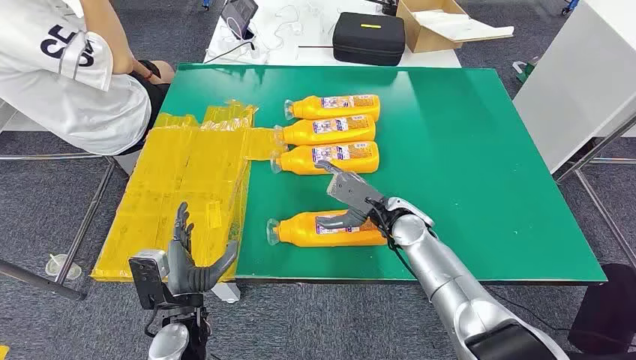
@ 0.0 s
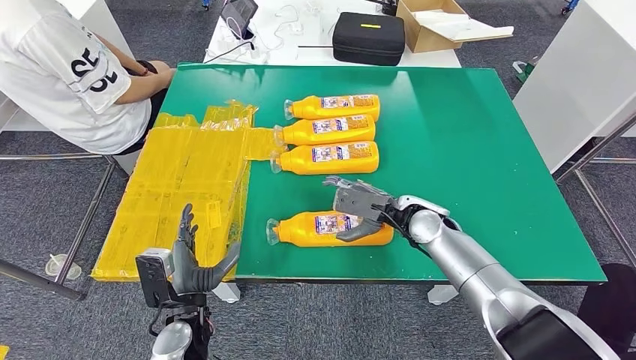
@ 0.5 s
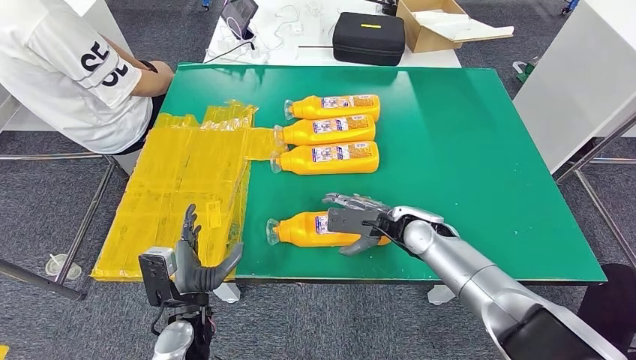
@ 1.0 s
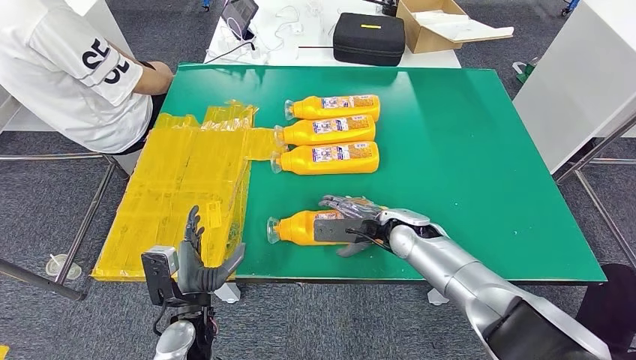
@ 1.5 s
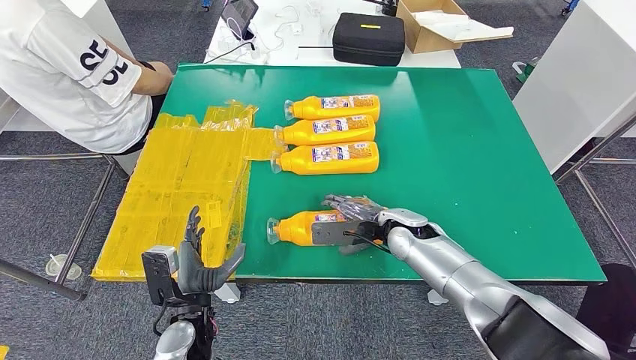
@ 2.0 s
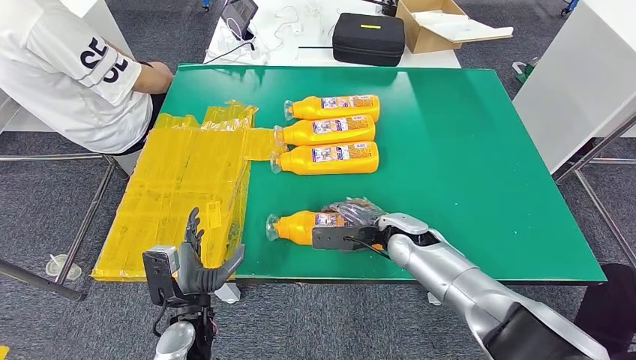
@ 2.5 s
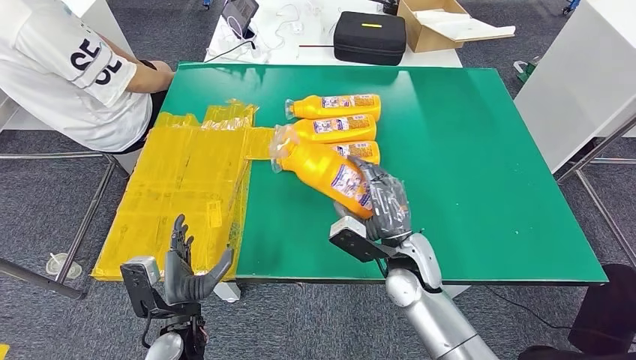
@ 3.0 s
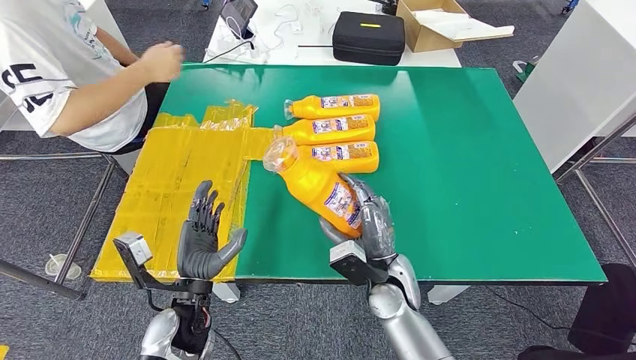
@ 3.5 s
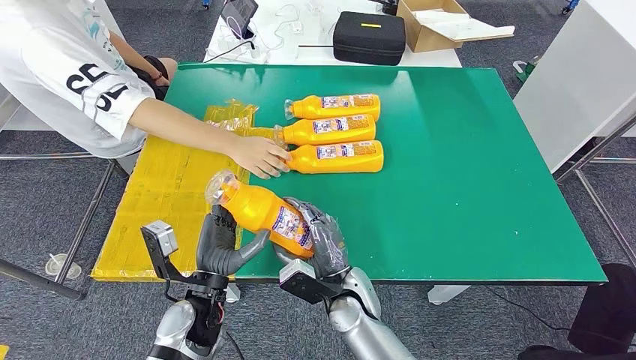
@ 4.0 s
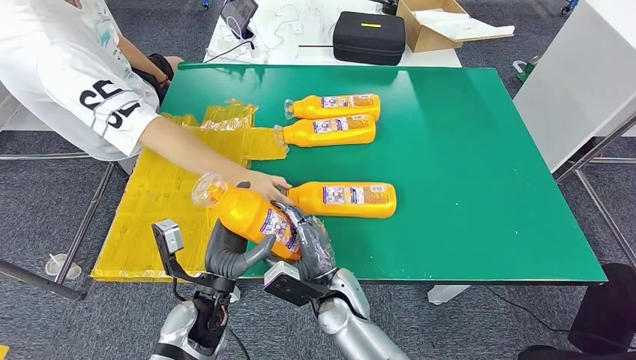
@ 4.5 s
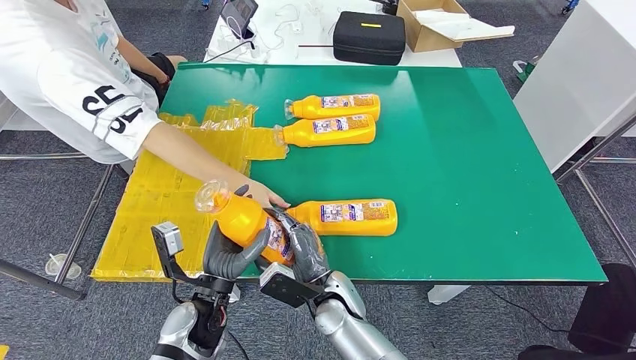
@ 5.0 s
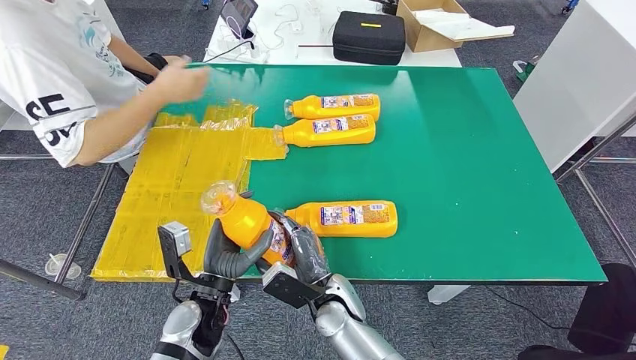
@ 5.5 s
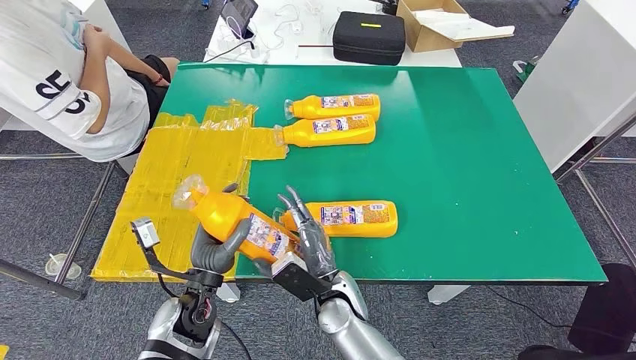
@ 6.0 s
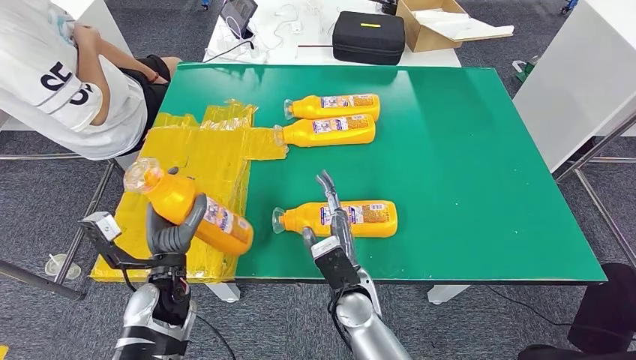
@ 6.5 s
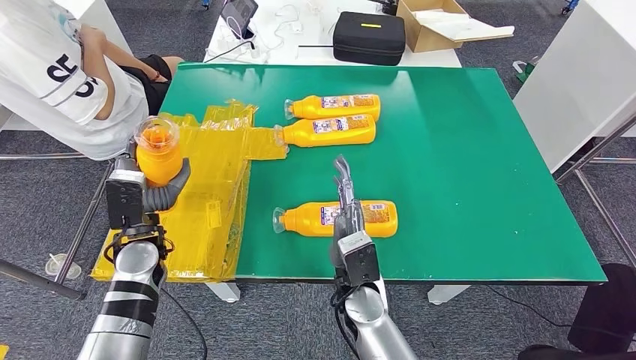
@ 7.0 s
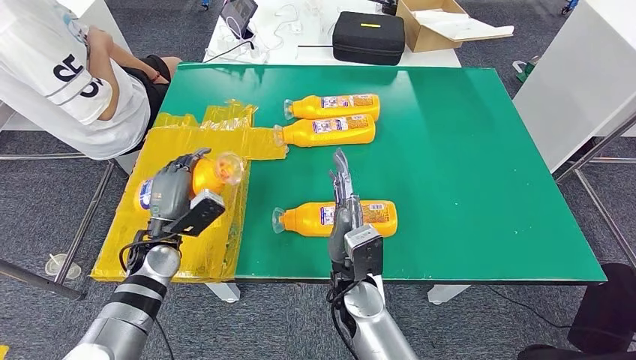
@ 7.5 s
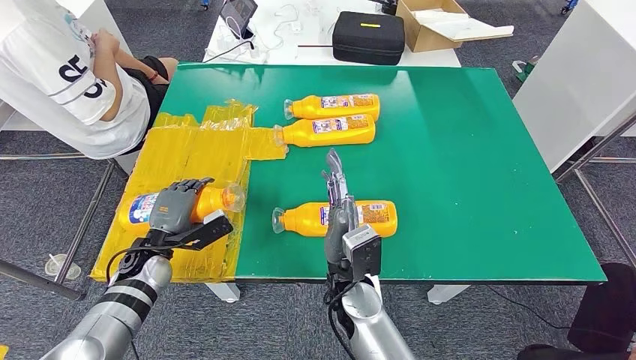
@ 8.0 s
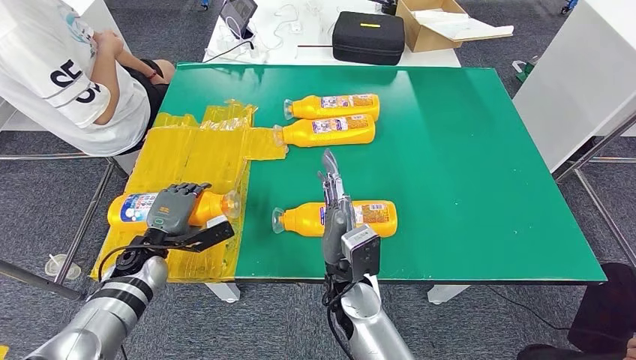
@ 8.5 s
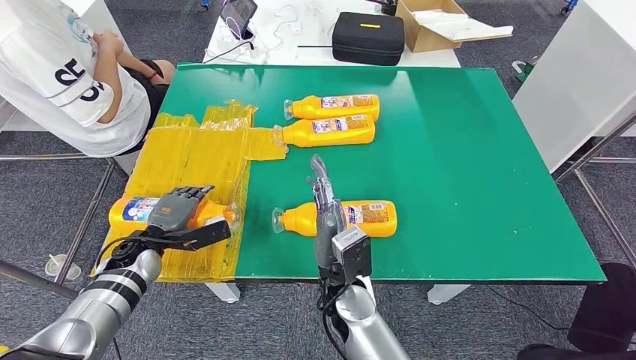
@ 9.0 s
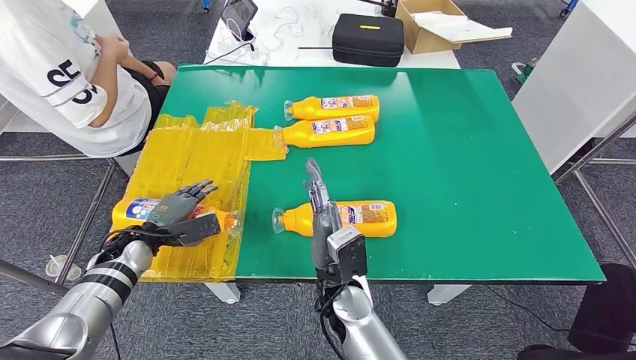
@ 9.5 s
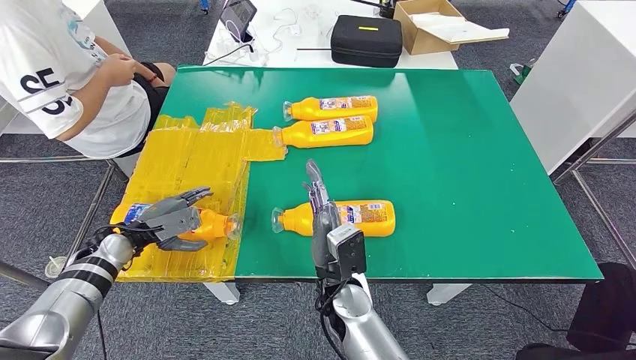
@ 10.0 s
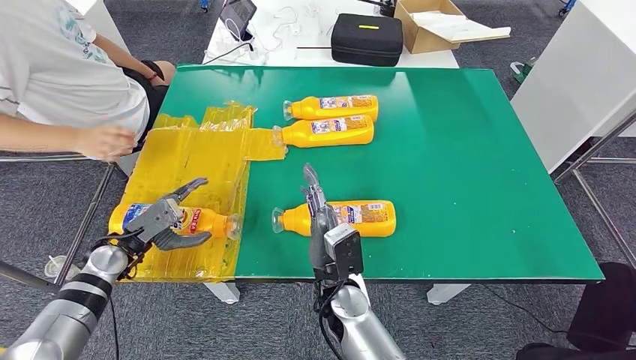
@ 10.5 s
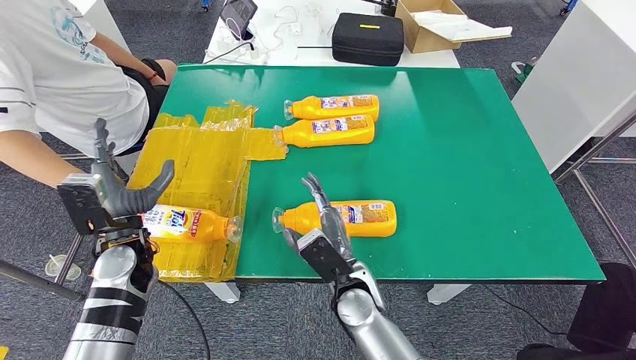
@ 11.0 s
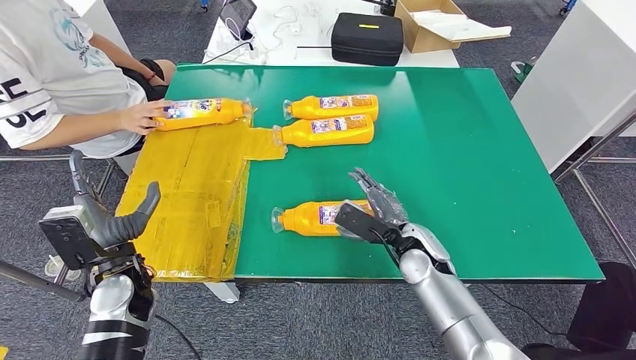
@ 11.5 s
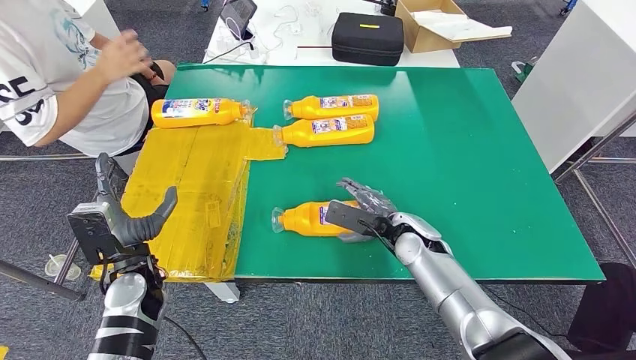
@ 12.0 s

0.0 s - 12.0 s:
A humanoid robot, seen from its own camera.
Step, 0.0 s - 5.0 s: Take the fast-moving consumer goods bottle from the table.
Step, 5.5 s - 11.5 s: Flip the fast-moving consumer goods bottle to the front side.
4.0 s - 6.0 s: The hands make only small movements.
6.0 s - 8.0 s: The right hand shifts some 5 cm upward. Meanwhile the left hand goes some 15 cm to the left and forward.

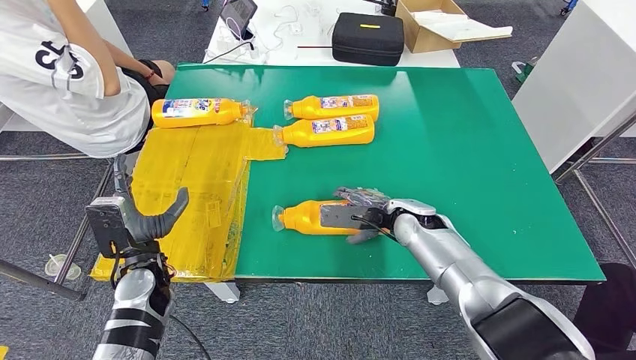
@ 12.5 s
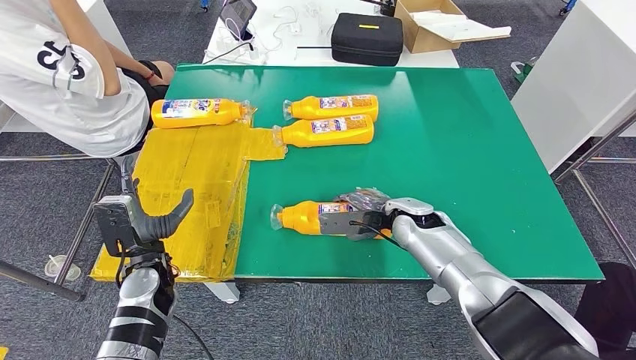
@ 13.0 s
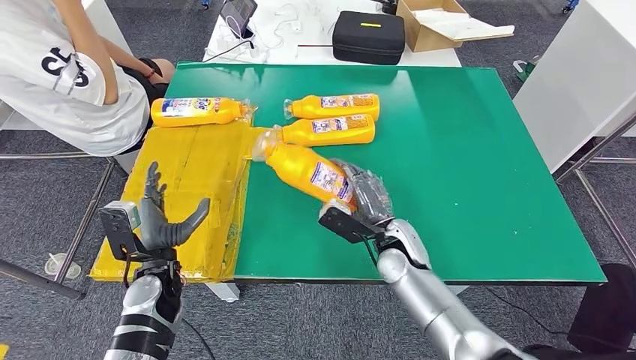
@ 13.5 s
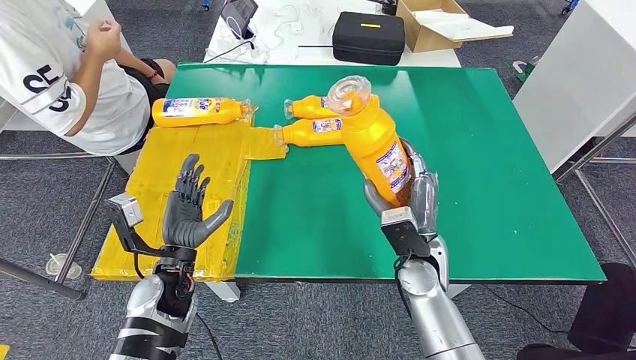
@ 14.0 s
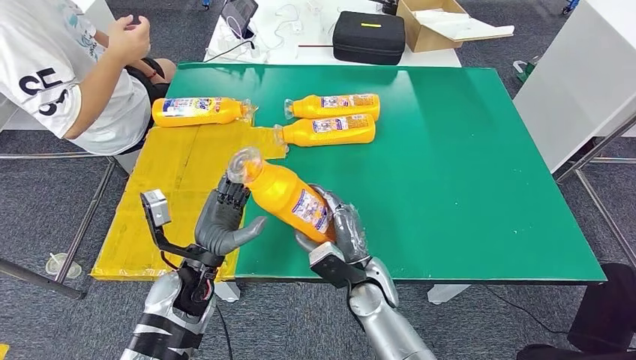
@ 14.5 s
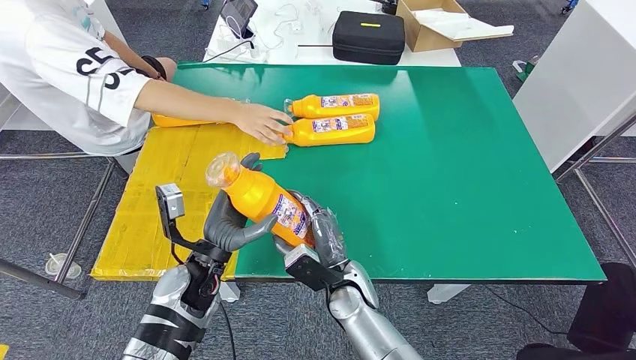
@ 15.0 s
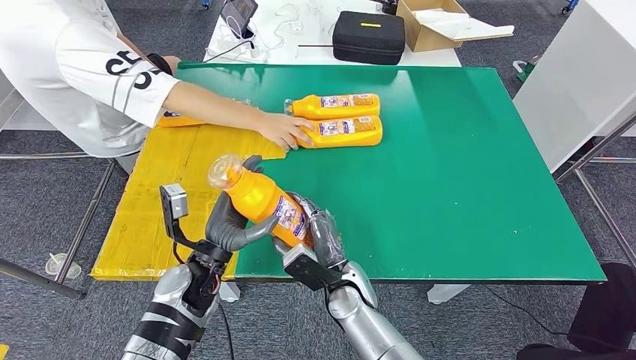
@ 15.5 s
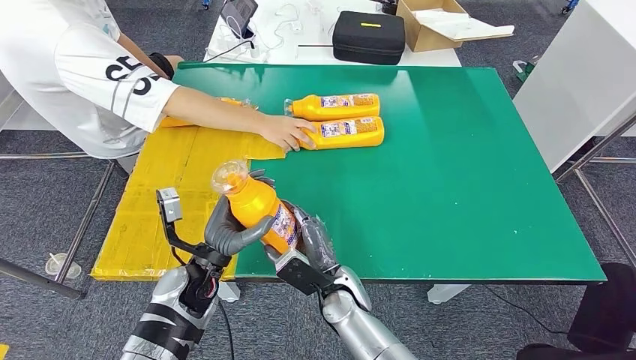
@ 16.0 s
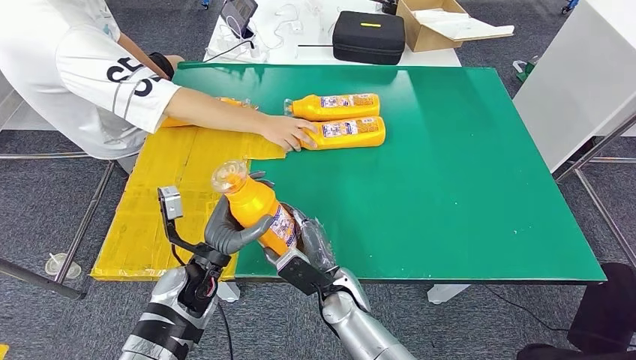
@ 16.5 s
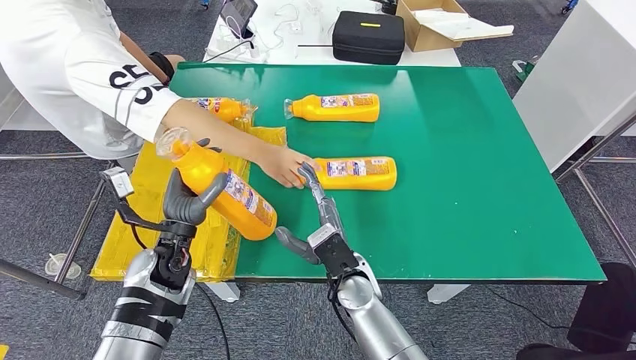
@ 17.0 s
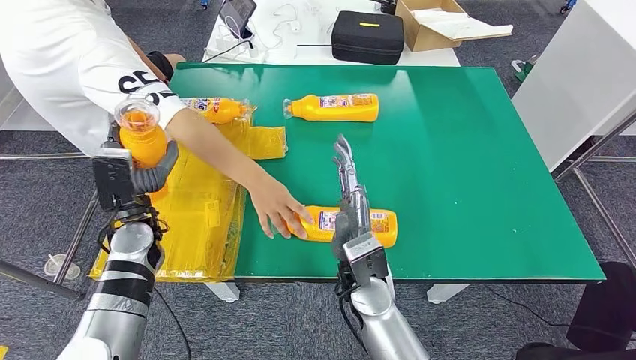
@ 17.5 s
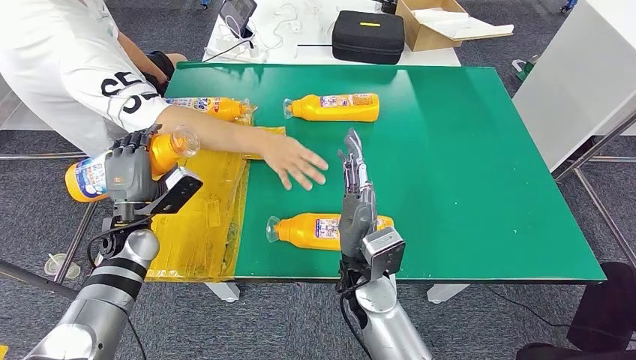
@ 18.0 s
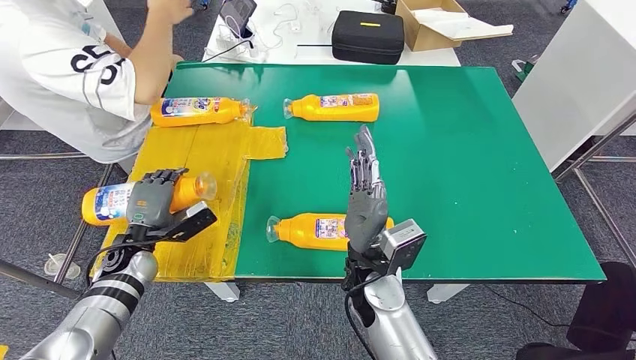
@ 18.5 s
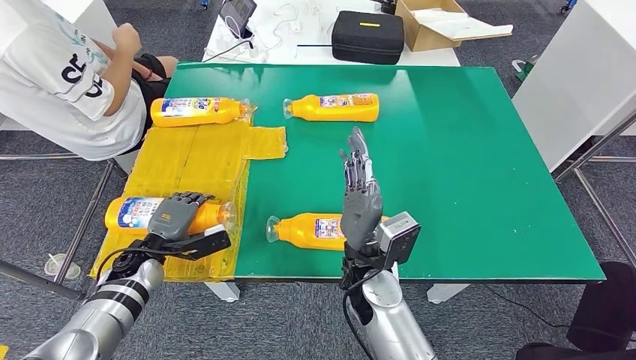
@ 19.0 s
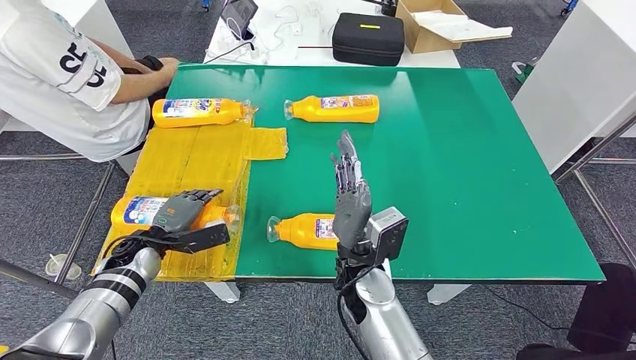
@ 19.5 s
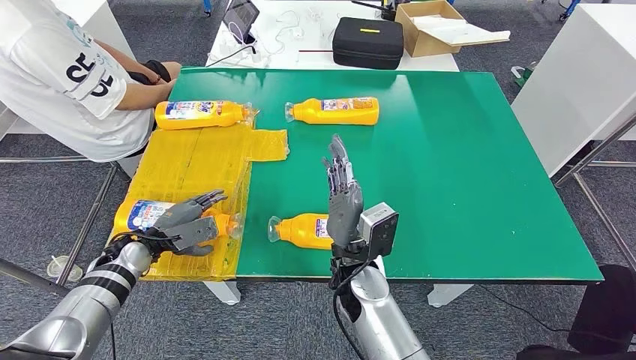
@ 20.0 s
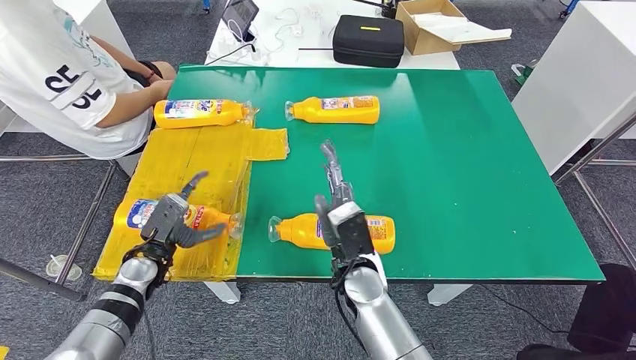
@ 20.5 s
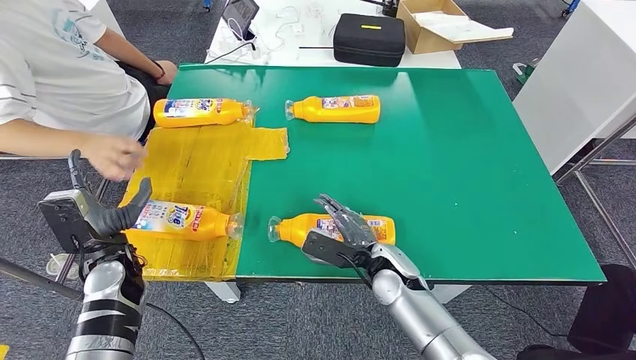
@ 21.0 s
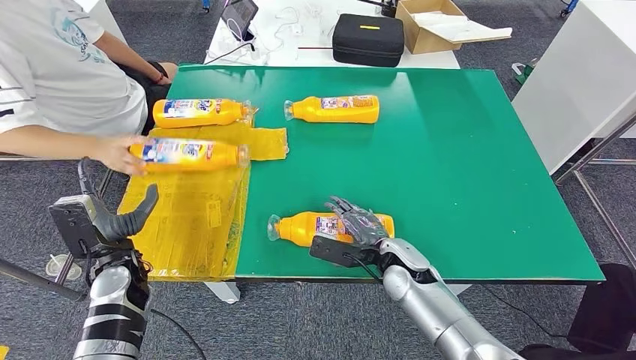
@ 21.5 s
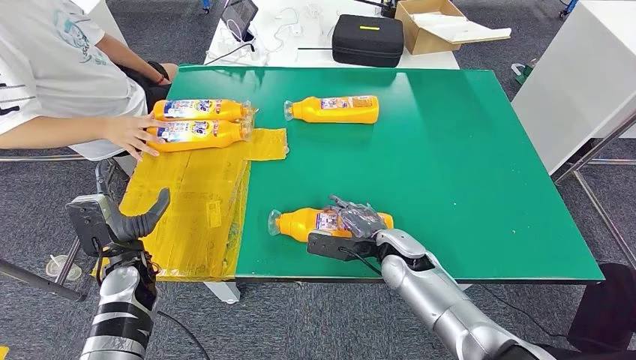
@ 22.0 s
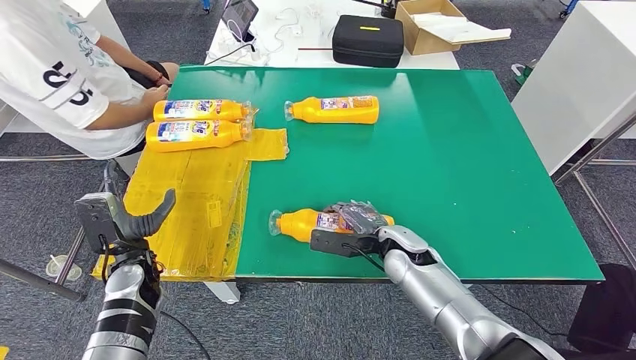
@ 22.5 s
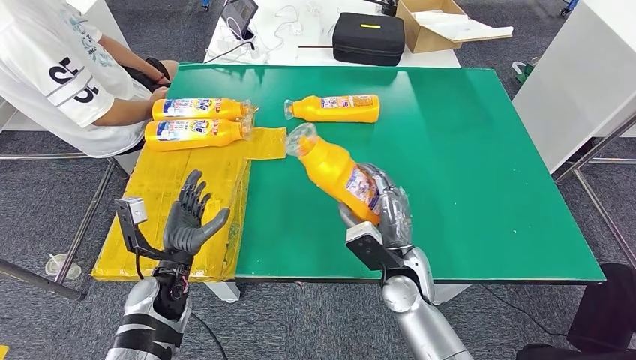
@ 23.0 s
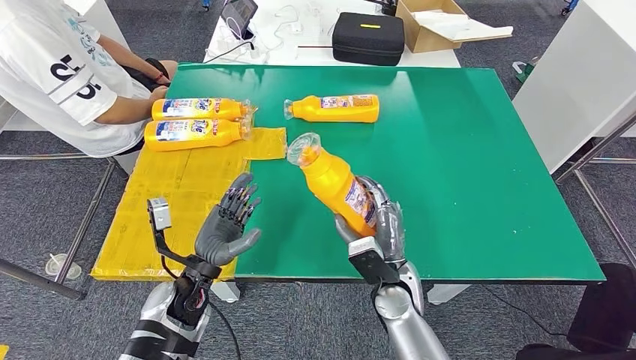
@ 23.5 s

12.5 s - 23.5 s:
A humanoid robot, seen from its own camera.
Step, 12.5 s - 15.0 s: Pick up the fast-moving consumer goods bottle from the table.
Step, 15.5 s - 21.5 s: Flip the fast-moving consumer goods bottle to the front side.
14.5 s - 16.0 s: The right hand shifts approximately 5 cm to the left.
